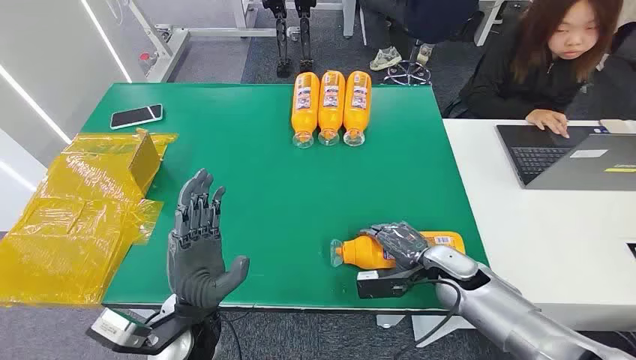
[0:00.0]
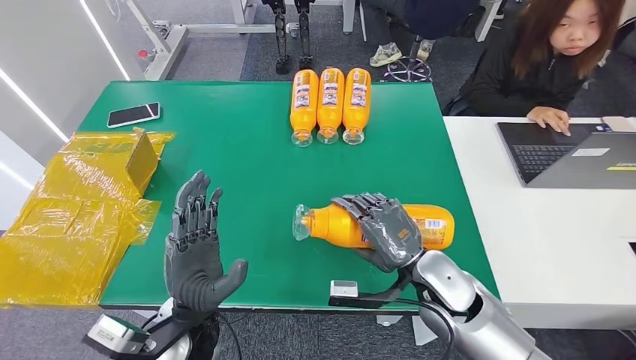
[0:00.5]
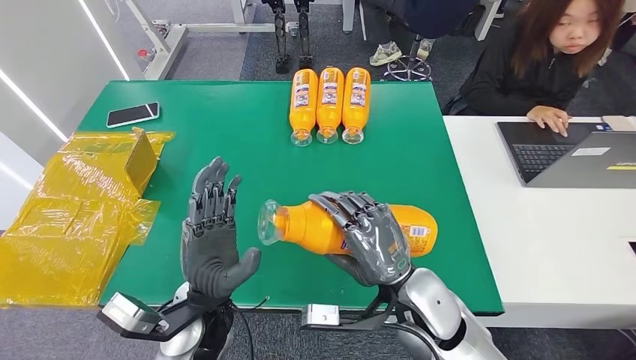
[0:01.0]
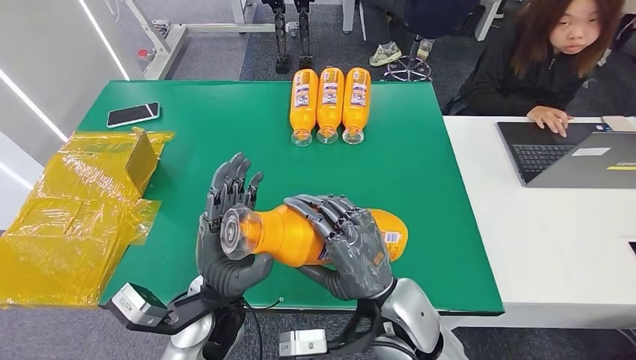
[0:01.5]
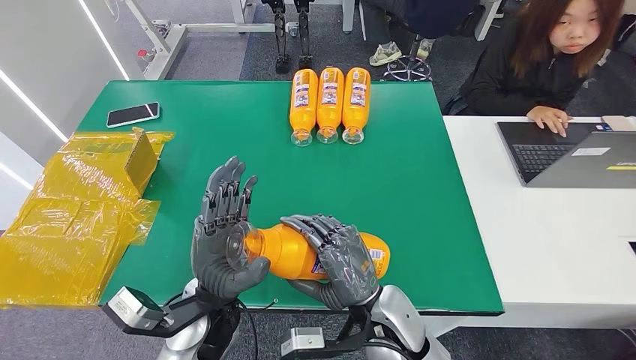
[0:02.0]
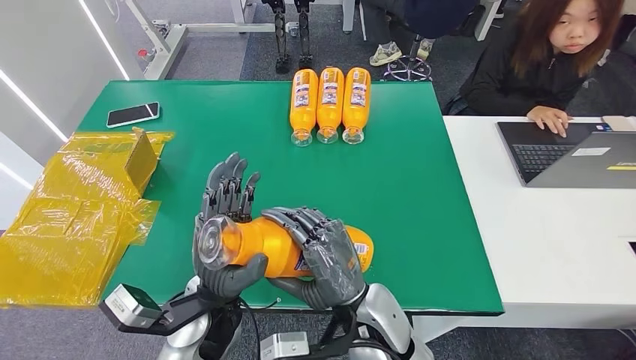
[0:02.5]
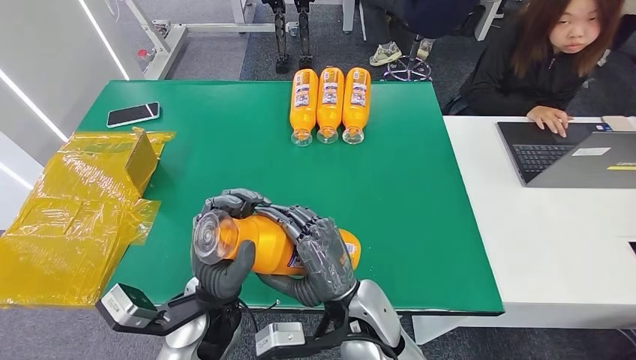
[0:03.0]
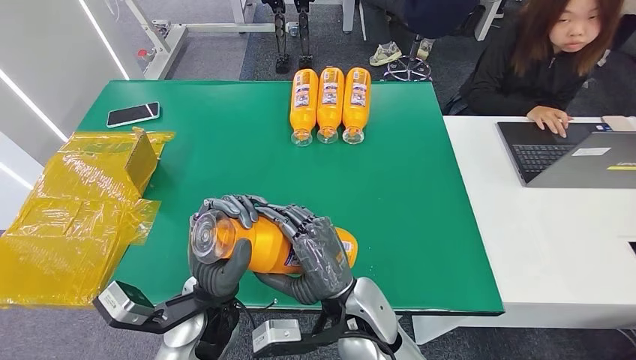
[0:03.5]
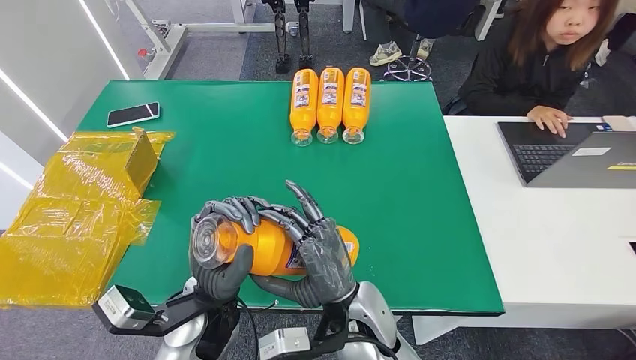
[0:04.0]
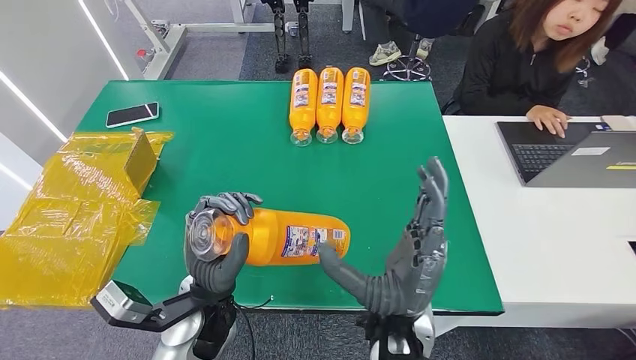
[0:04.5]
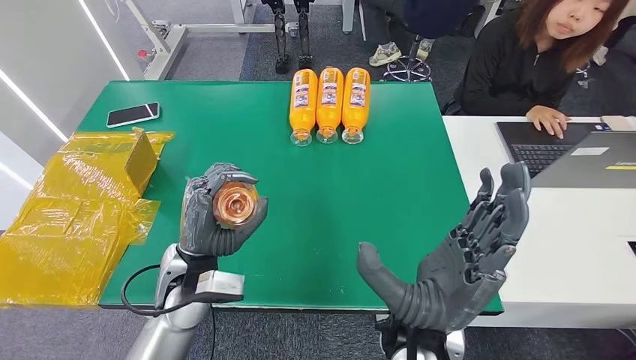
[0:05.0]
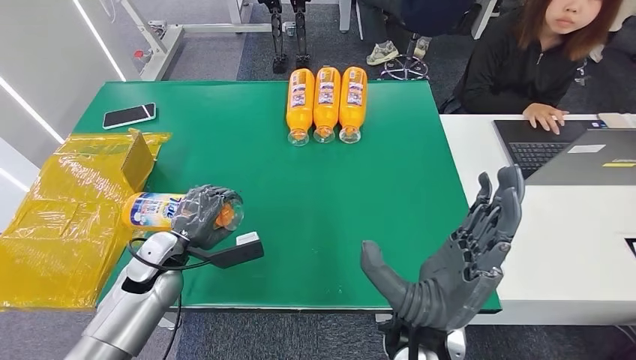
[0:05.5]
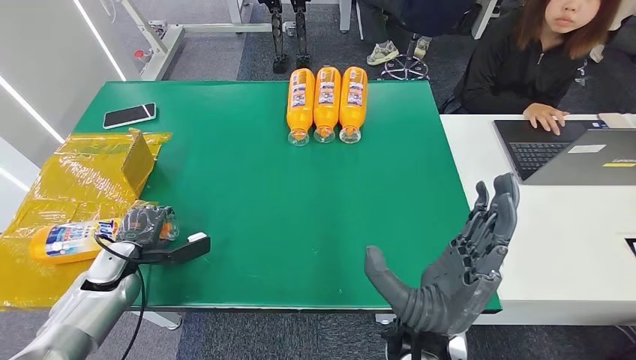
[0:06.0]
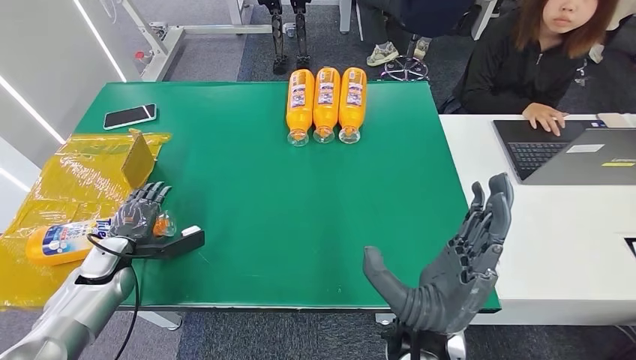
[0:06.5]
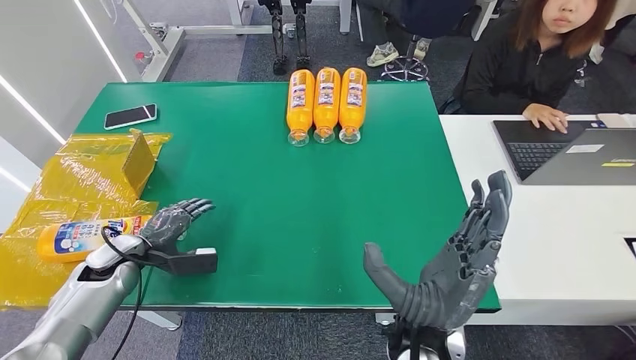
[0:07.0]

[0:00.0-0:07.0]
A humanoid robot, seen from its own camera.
Step, 0:00.0 to 0:02.0: Pick up the bottle from the table.
Step, 0:02.5 to 0:07.0: Turn the bottle to the front side.
0:02.0 to 0:03.5: The right hand moves roughly 5 cm.
0:03.5 to 0:05.0: The left hand shifts by roughly 5 cm; the right hand goes some 10 cm upward.
0:05.0 to 0:07.0: The left hand travels to the left by approximately 25 cm.
